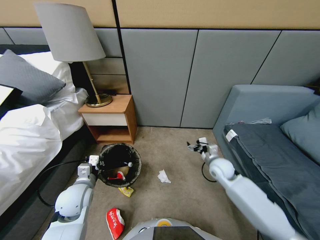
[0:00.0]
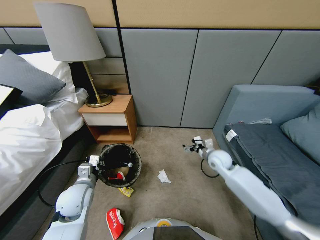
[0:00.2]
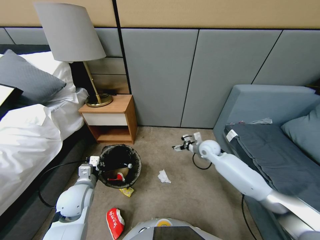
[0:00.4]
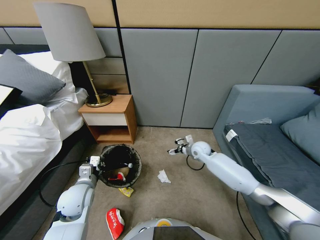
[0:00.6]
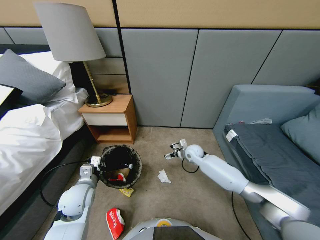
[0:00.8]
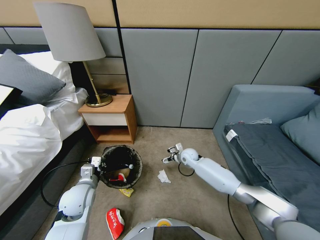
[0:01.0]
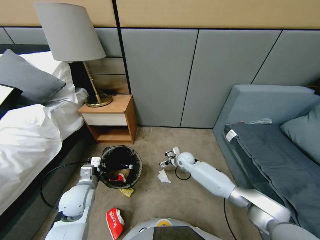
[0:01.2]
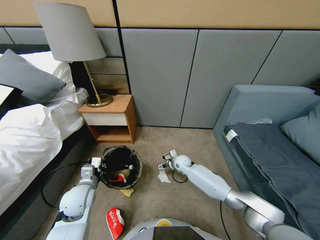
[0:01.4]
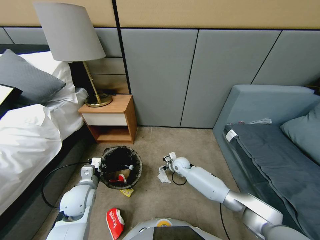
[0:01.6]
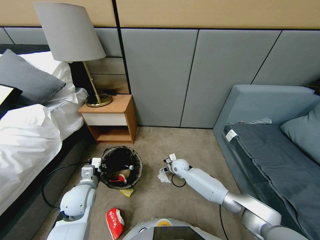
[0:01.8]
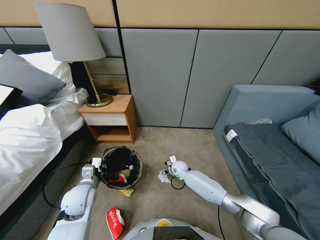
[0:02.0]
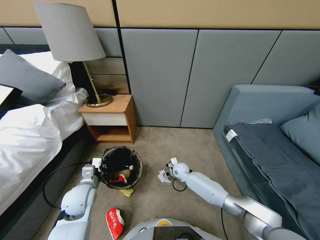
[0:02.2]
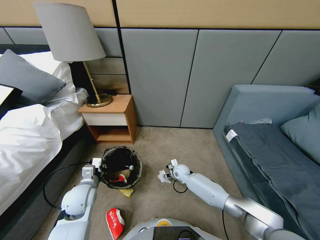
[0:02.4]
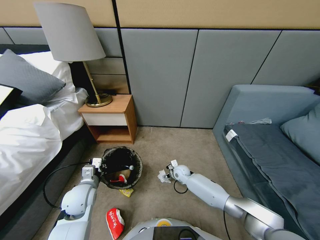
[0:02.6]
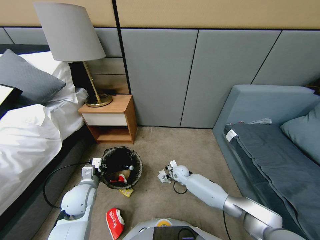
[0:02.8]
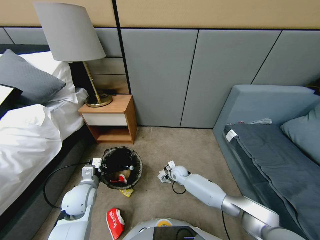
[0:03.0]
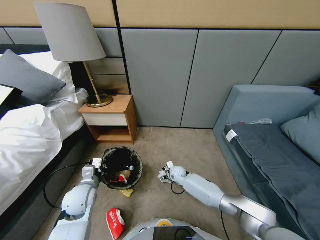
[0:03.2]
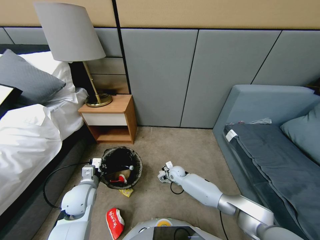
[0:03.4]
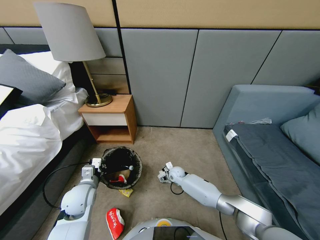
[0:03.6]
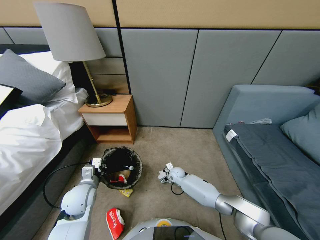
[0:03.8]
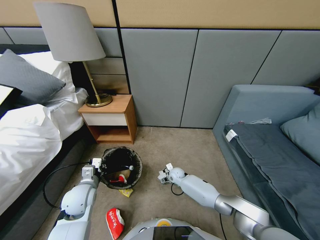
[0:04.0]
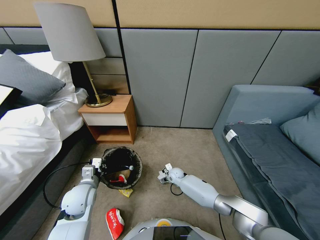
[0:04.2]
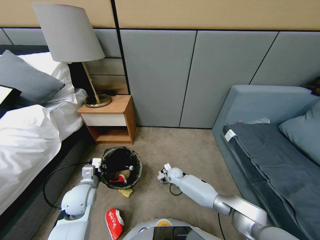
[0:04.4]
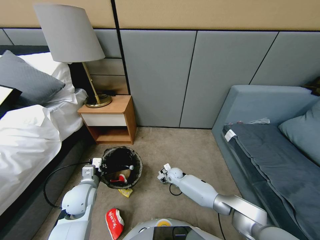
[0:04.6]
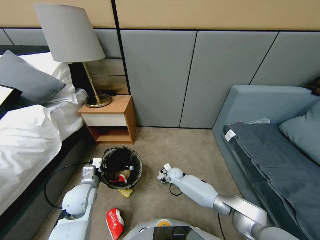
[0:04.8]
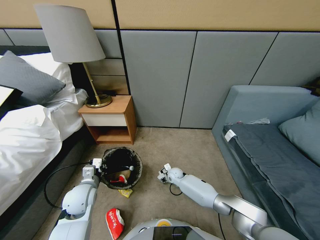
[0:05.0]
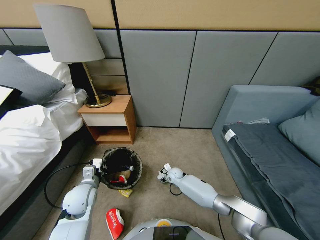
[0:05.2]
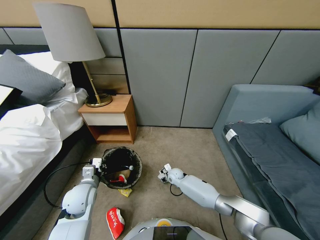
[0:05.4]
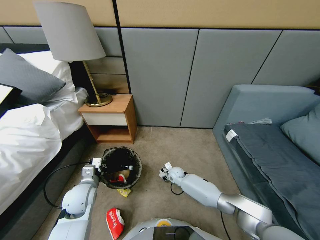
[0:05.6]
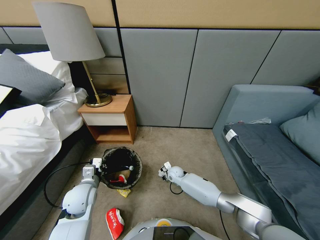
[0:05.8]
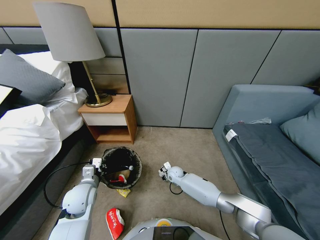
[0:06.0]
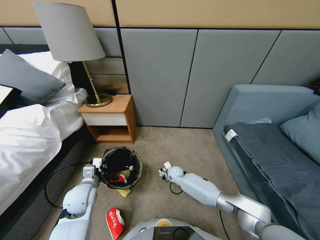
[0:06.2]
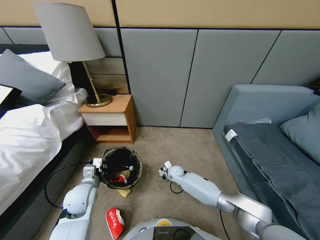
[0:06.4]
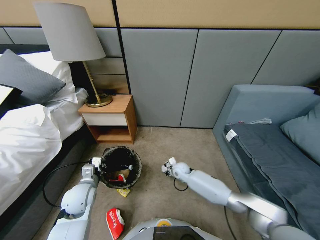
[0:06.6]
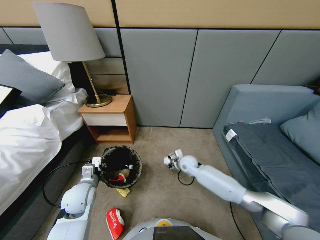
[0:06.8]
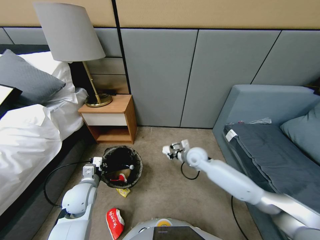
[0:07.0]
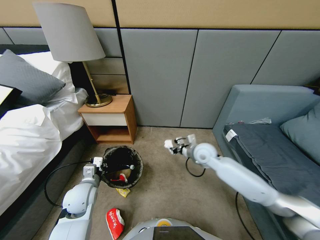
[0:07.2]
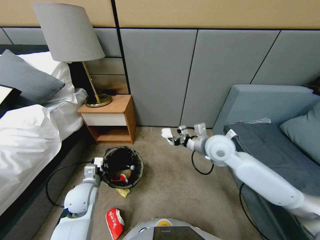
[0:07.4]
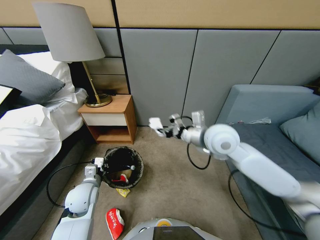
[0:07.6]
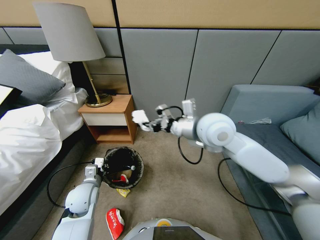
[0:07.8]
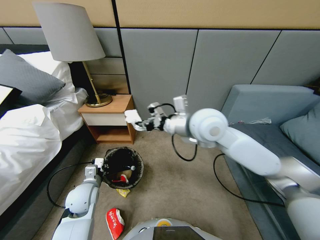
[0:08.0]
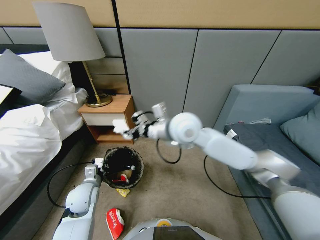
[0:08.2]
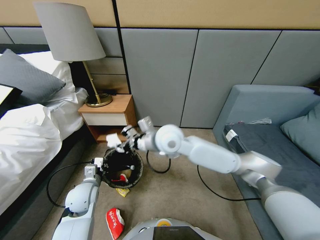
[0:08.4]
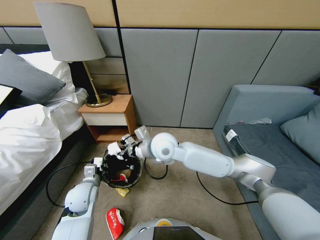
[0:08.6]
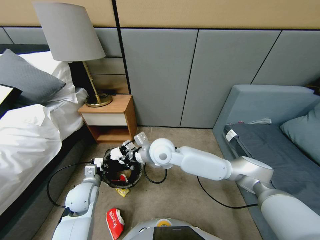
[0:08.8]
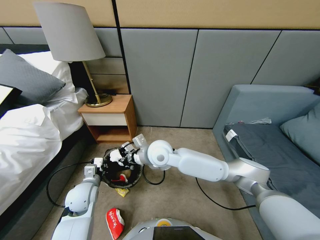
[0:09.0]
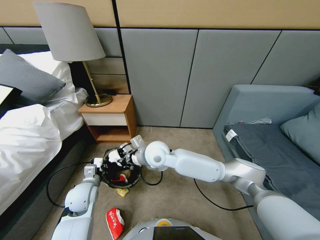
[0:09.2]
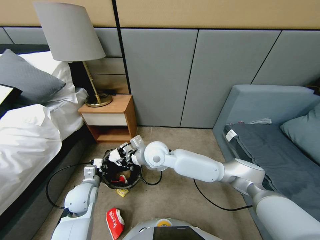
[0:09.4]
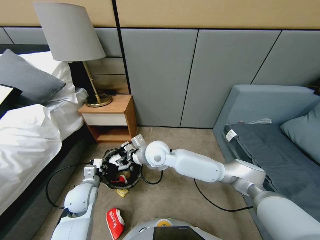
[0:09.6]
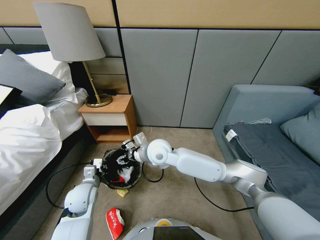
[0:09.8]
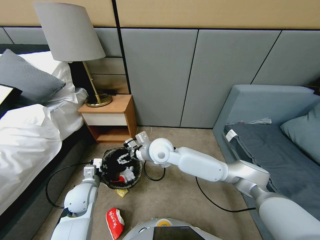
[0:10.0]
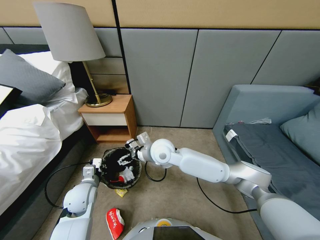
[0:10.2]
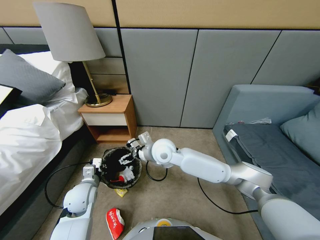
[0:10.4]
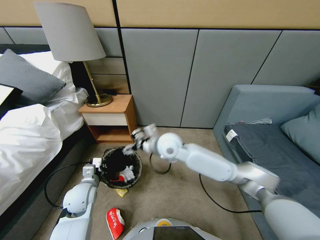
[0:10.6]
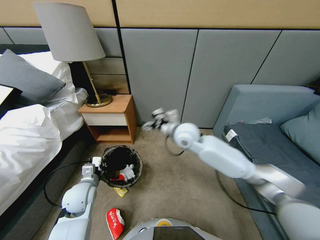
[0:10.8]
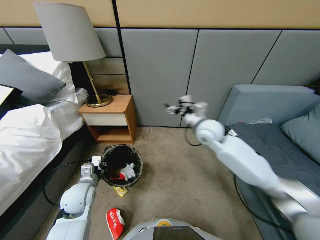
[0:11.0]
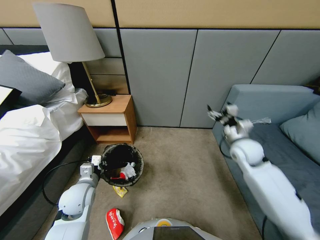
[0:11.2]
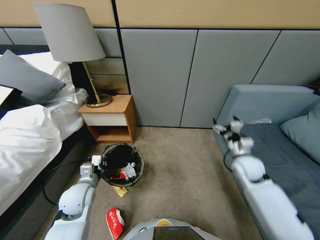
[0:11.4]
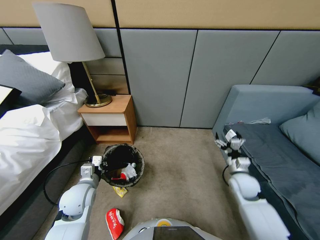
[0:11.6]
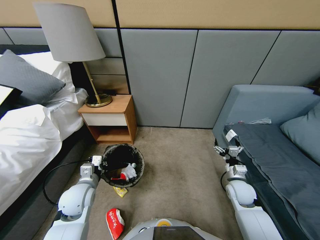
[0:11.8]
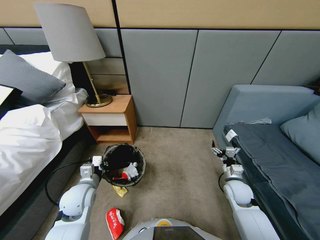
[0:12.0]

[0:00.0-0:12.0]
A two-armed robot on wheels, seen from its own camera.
Task of the whole recording: Pick up the trash bin, then pick up the garbage from the floor and place it into the trash bin.
0:00.0 to 0:01.6: The right gripper moves to the left and downward, some 20 cm.
0:01.6 to 0:03.0: The right gripper ends up approximately 5 cm from where it was.
0:03.0 to 0:04.4: The right gripper closes.
0:04.4 to 0:06.0: The right gripper closes its fingers.
0:06.0 to 0:07.6: The right gripper travels upward by about 40 cm.
0:07.6 to 0:09.0: The right gripper goes approximately 20 cm to the left and downward.
0:09.0 to 0:10.4: The right gripper opens its fingers.
0:10.4 to 0:12.0: The right gripper is displaced to the right and downward by about 35 cm.

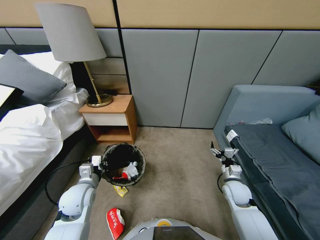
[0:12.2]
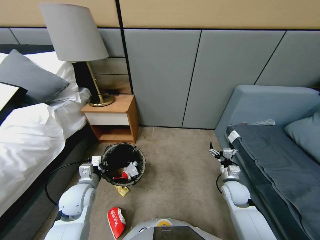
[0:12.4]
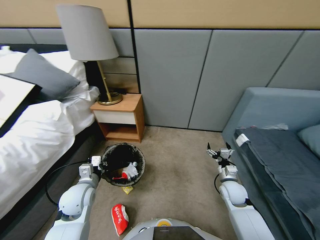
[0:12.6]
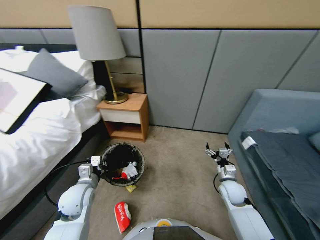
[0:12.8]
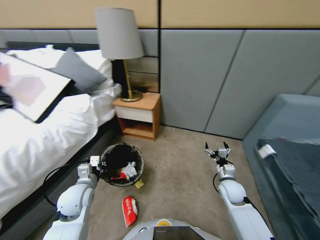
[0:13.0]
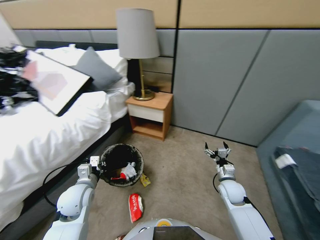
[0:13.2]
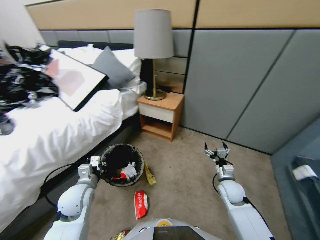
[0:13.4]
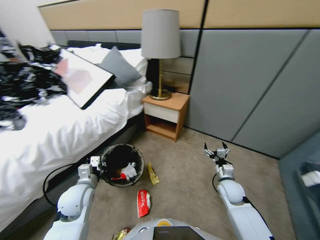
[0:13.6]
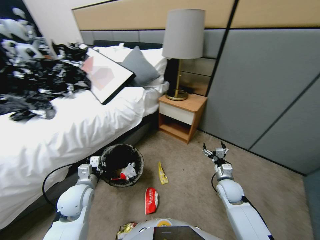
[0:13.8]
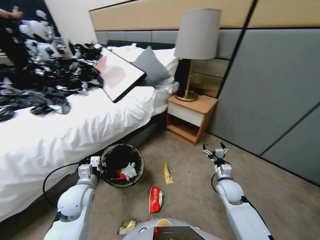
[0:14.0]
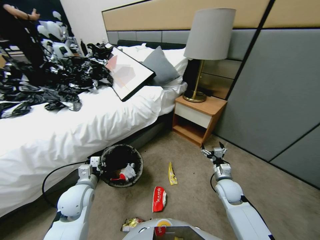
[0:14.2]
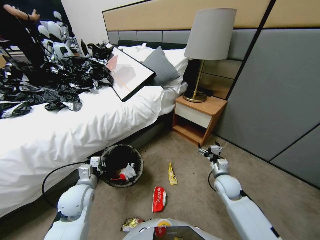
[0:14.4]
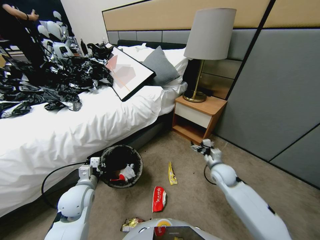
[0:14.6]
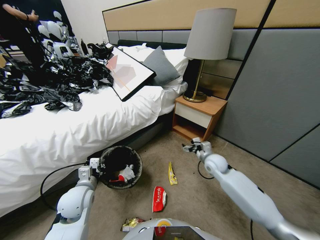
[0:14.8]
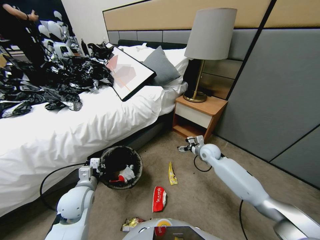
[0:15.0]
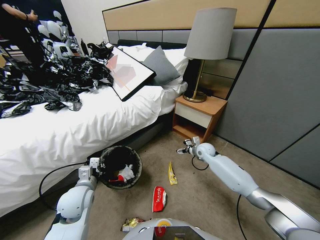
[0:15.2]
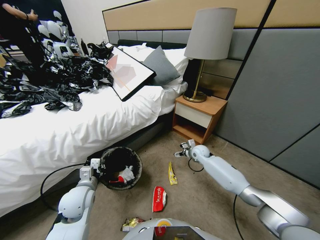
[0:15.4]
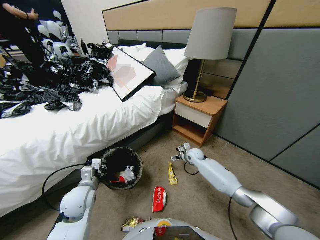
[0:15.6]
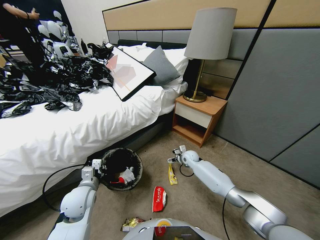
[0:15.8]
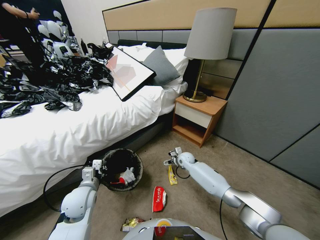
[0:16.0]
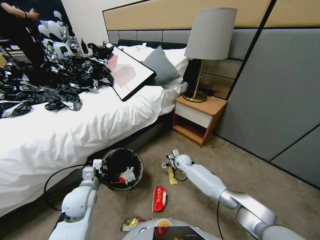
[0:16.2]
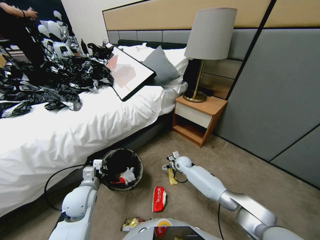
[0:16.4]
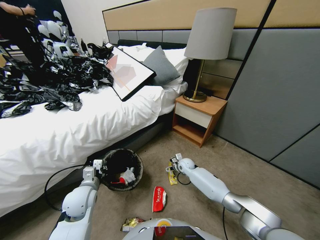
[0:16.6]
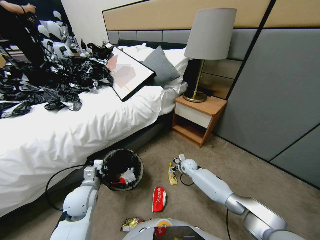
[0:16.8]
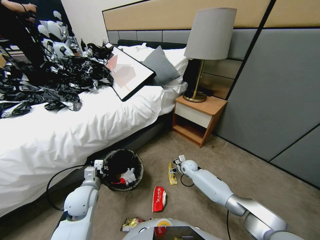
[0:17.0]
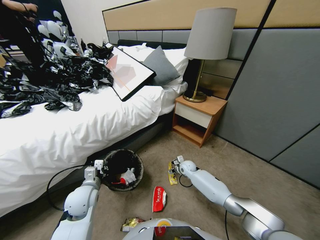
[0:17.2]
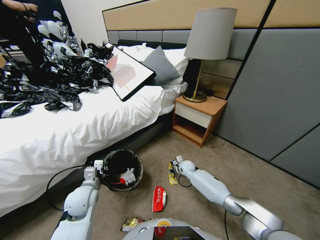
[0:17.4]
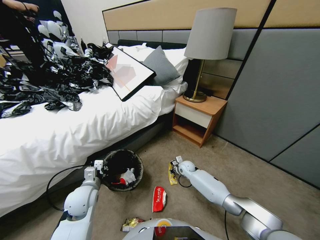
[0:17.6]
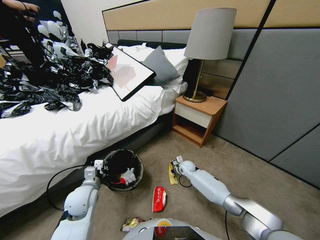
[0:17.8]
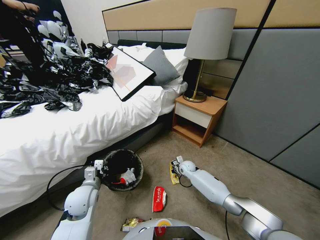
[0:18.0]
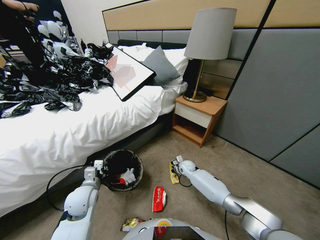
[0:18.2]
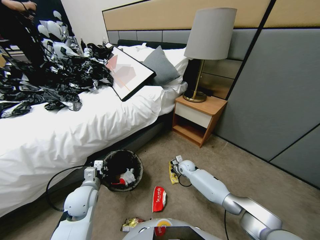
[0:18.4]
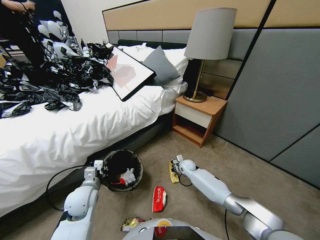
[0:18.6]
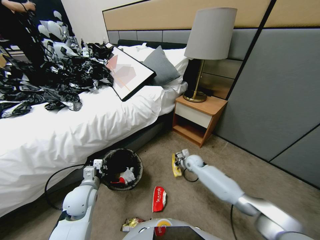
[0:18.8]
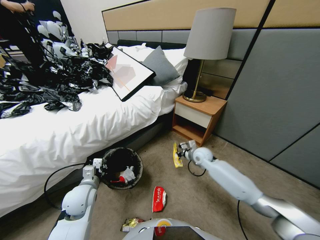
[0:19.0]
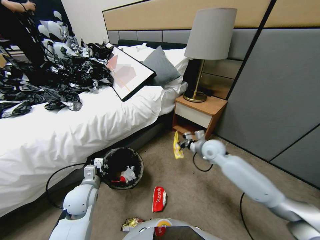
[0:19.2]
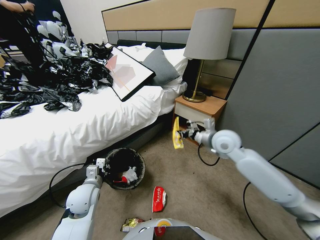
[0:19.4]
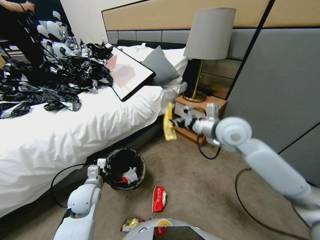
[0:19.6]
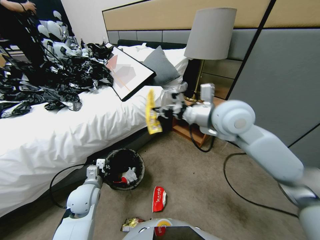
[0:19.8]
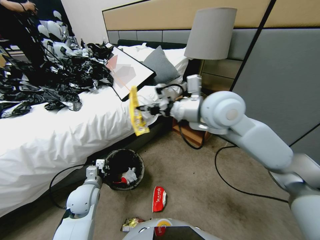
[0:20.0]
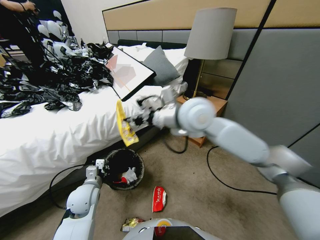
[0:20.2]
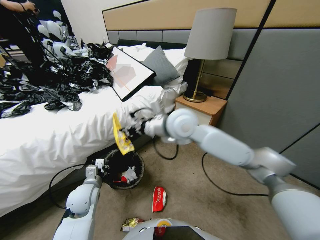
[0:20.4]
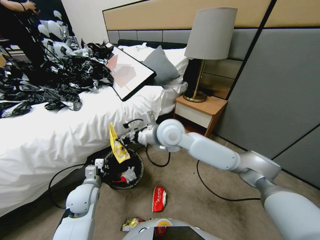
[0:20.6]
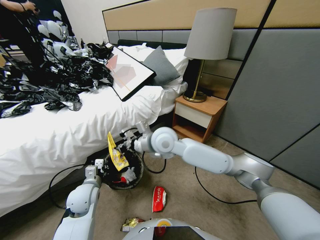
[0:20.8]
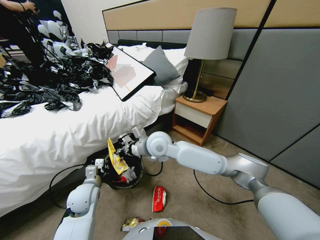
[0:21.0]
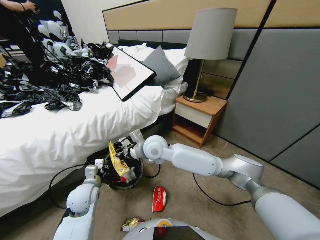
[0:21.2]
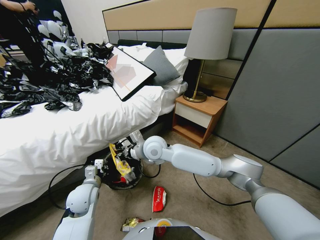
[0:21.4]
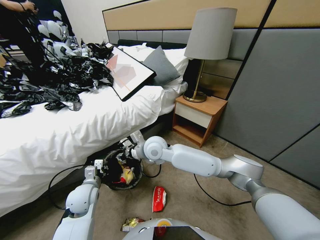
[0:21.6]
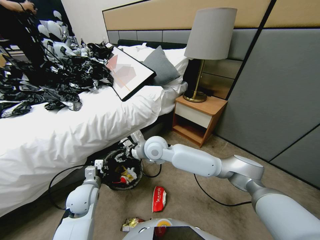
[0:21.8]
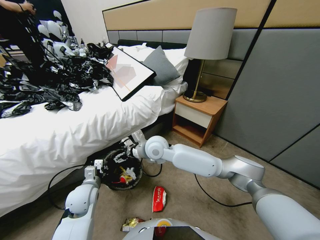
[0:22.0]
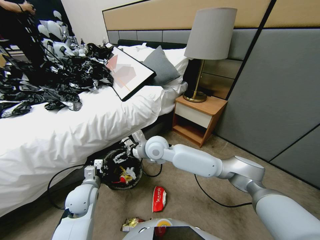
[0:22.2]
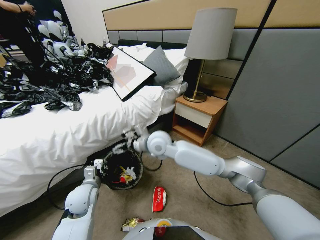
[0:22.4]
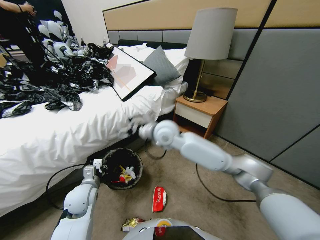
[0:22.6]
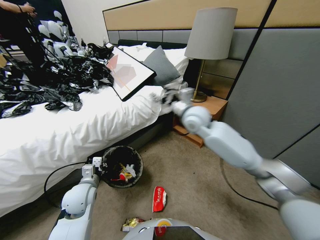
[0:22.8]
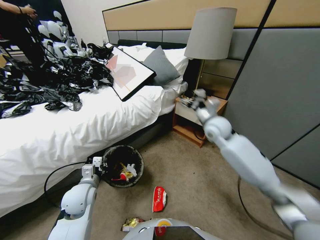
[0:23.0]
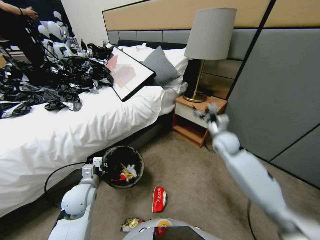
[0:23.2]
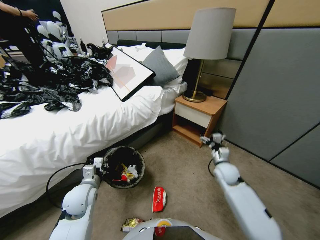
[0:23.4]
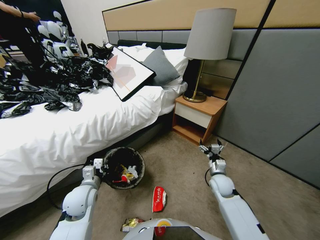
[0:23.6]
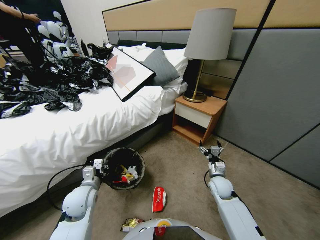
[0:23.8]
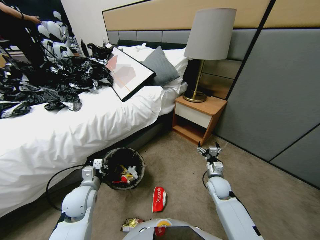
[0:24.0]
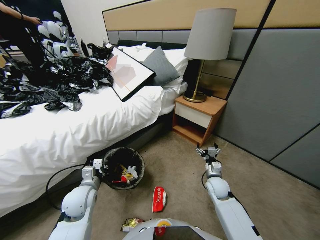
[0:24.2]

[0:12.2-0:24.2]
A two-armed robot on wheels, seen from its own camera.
Task of the whole recording: Pick up the trash bin, then pick up the garbage from the floor and place it into the trash bin.
0:13.8 to 0:15.2: The right gripper is displaced forward by about 20 cm.
0:15.2 to 0:16.6: The right gripper shifts approximately 15 cm downward and to the left.
0:16.6 to 0:18.2: The right gripper closes.
0:18.2 to 0:19.8: The right gripper heads upward, covering some 50 cm.
0:19.8 to 0:21.2: The right gripper heads downward and to the left, covering roughly 25 cm.
0:21.2 to 0:22.6: The right gripper moves to the right, upward and forward, about 15 cm, and opens up.
0:22.6 to 0:24.2: The right gripper goes some 35 cm downward, to the right and backward.
